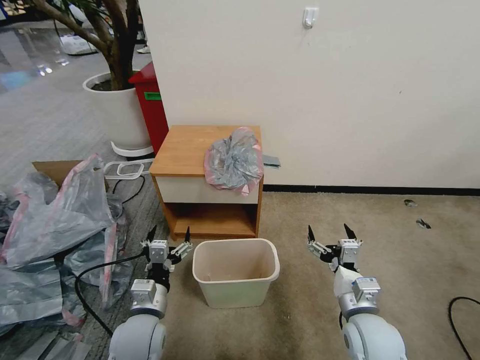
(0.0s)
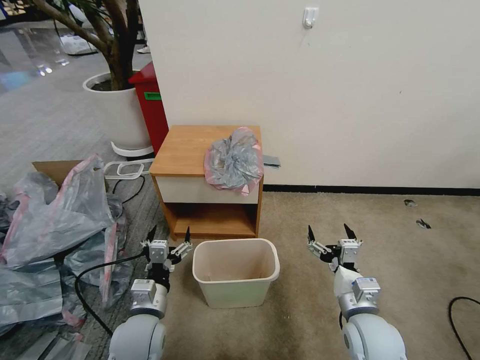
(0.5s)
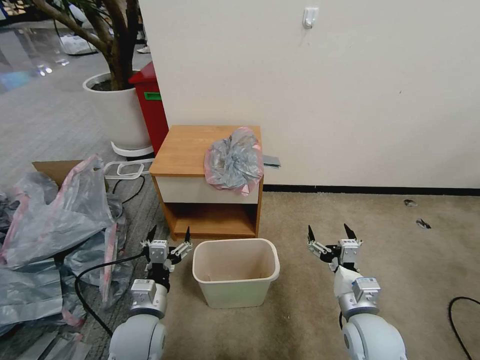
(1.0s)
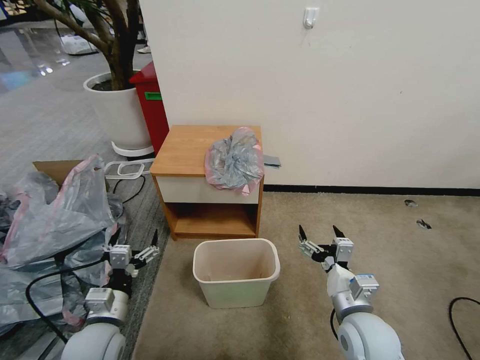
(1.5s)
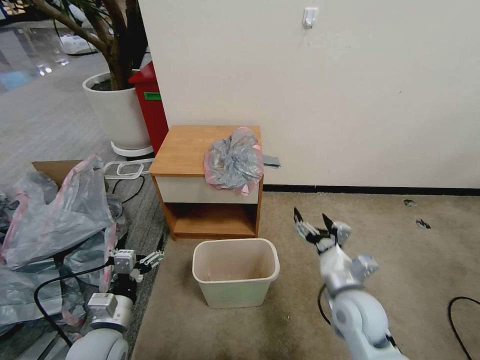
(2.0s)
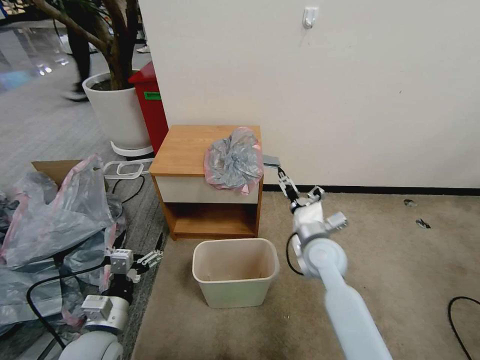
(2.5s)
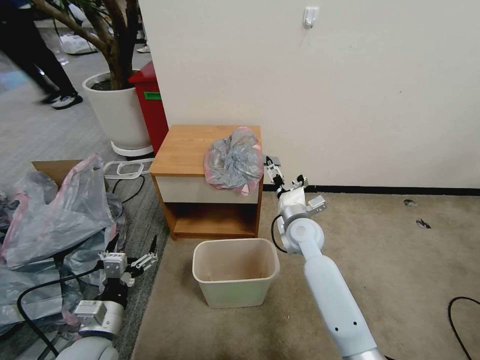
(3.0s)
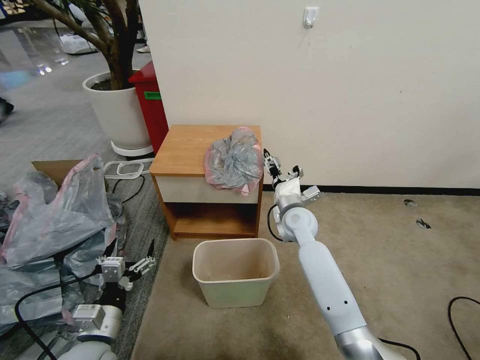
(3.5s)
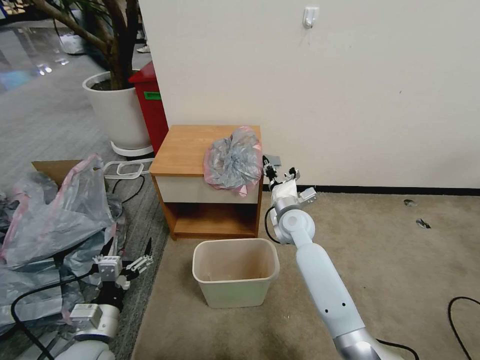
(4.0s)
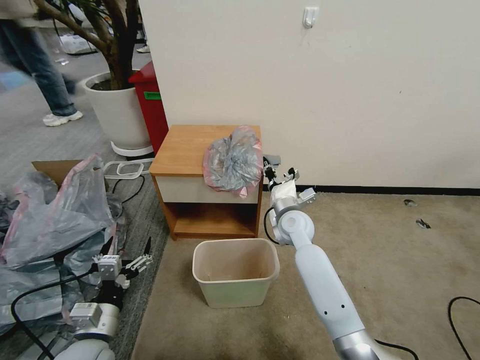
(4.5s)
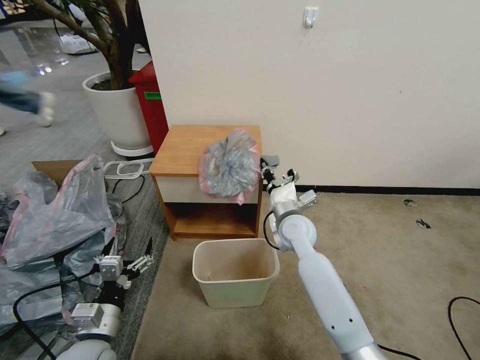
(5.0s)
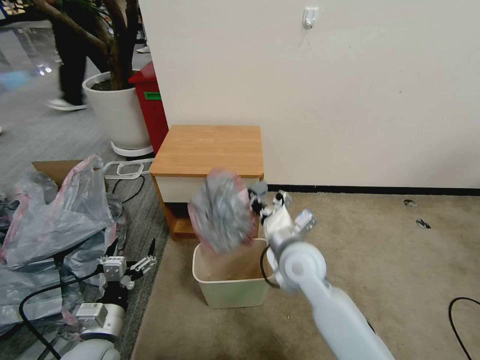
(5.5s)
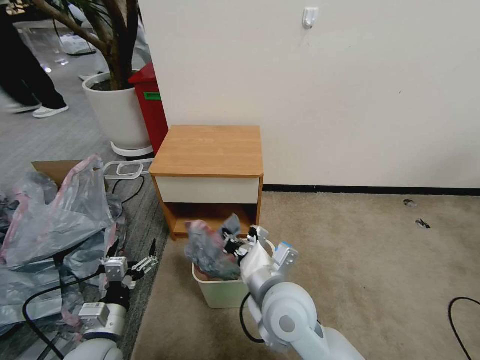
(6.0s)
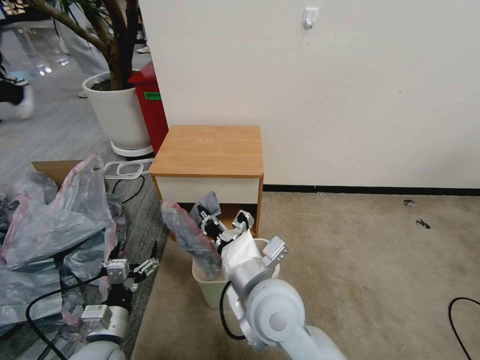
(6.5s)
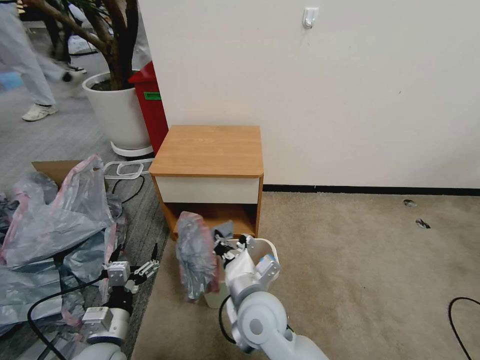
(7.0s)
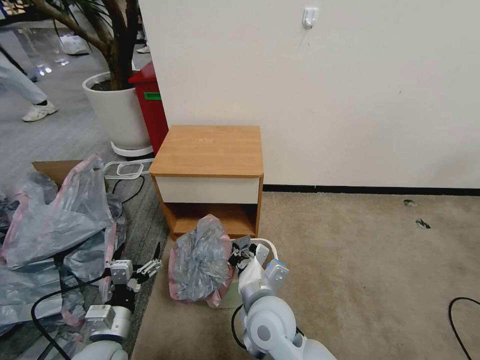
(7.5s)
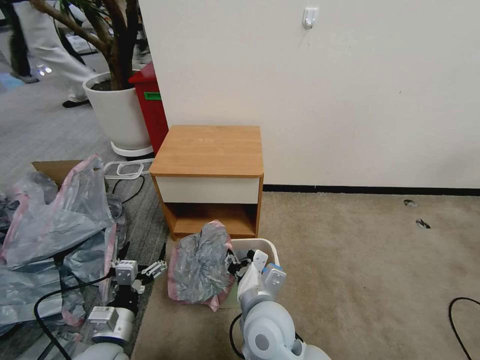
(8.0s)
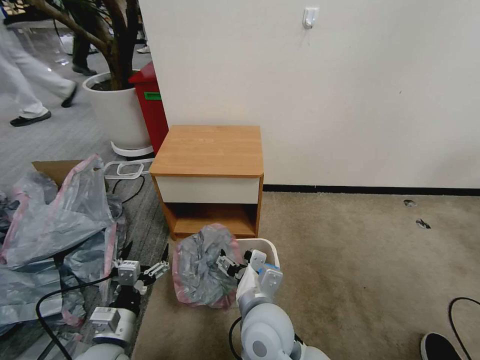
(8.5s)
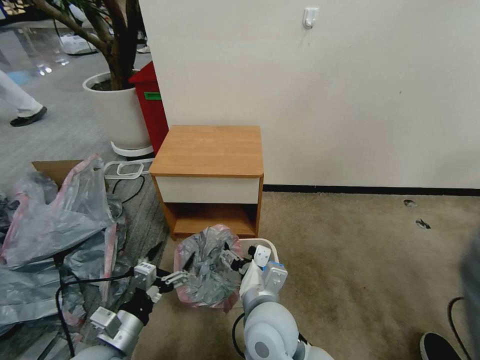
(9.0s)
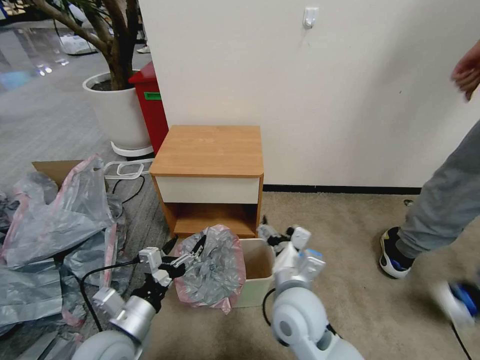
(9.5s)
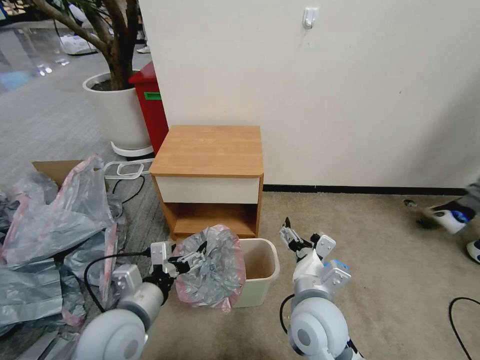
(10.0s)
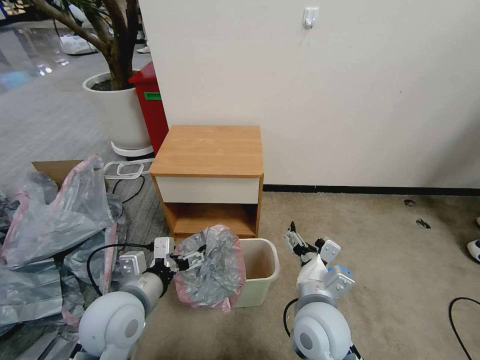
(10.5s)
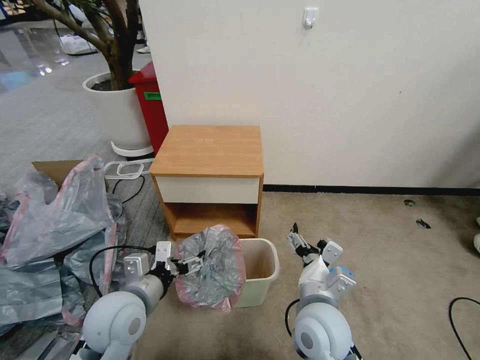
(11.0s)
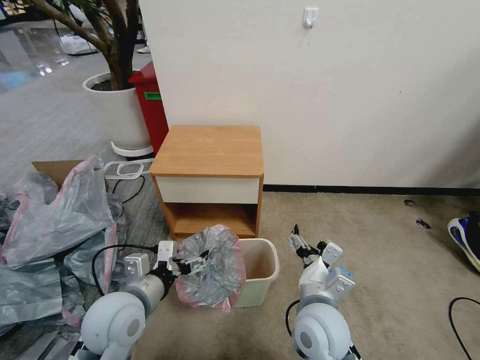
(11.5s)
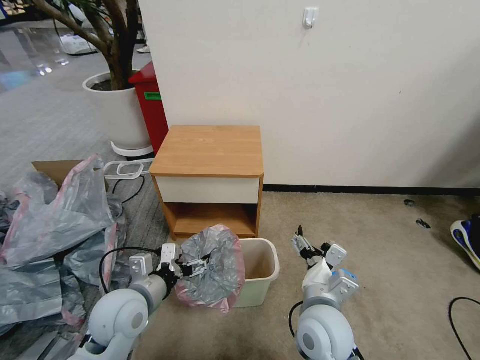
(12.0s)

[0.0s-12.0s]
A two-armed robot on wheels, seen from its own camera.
Task of the whole recording: Pick up the garbage bag from the table and place it over the trash can.
2.0s to 4.0s: The right gripper goes about 20 cm forward and to the left, and closes its fingers.
4.0s to 6.0s: The right gripper moves backward, some 20 cm.
6.0s to 8.0s: The right gripper changes place by approximately 5 cm, and opens its fingers.
8.0s to 10.0s: The left gripper moves upward and to the right, some 10 cm. Meanwhile the right gripper shifts roughly 10 cm to the right, and opens its fingers.
10.0s to 12.0s: The left gripper changes place by some 5 cm.

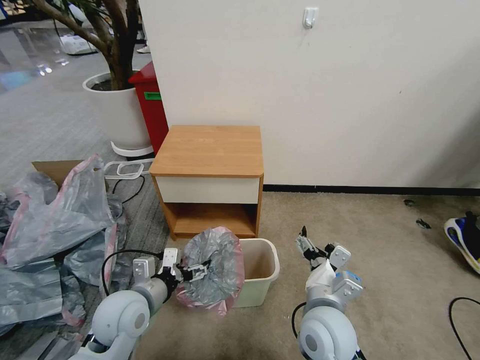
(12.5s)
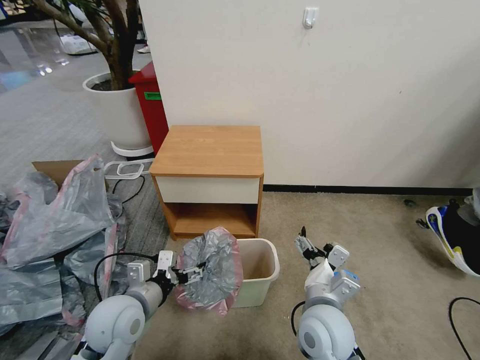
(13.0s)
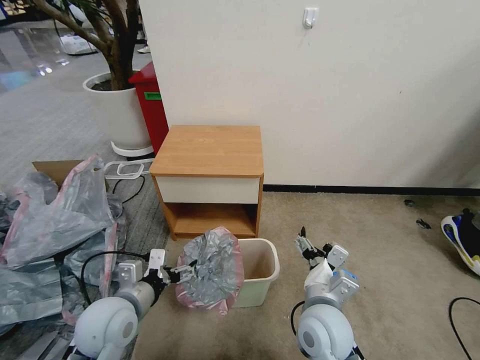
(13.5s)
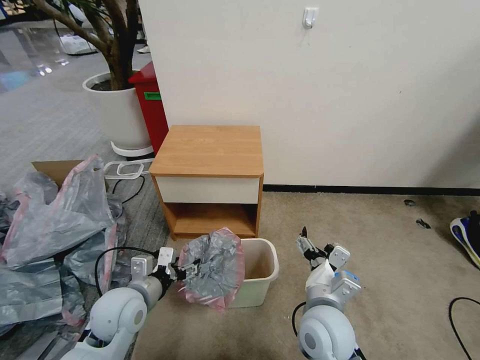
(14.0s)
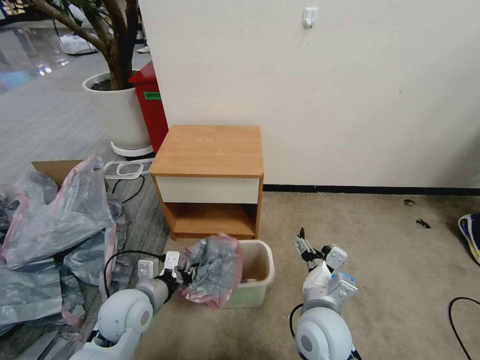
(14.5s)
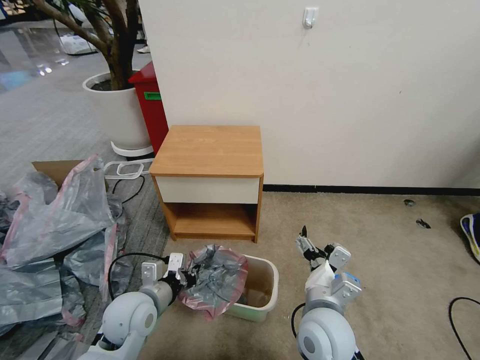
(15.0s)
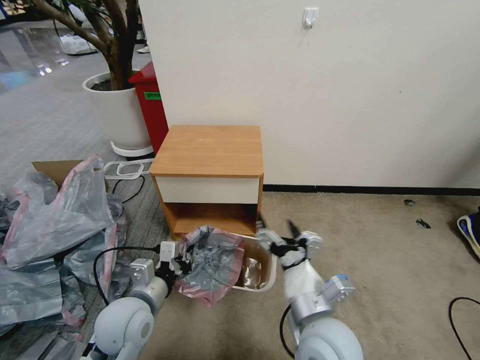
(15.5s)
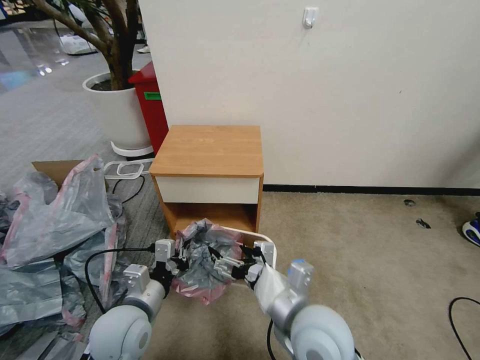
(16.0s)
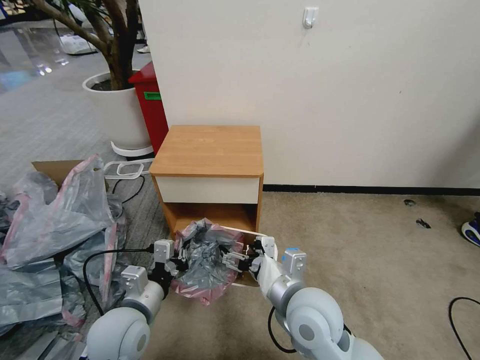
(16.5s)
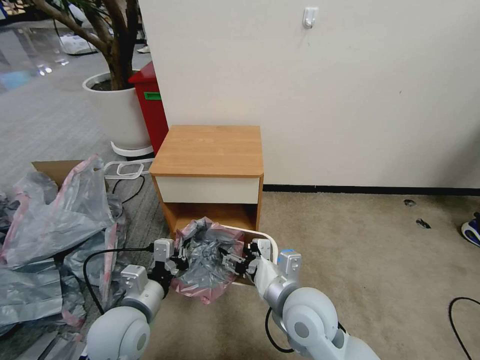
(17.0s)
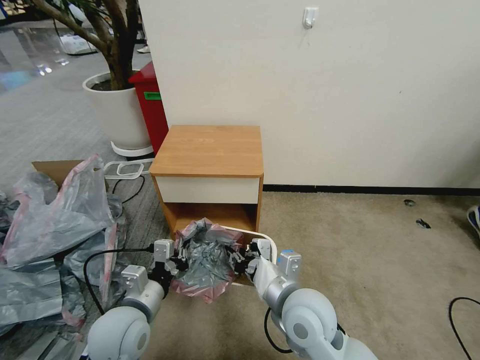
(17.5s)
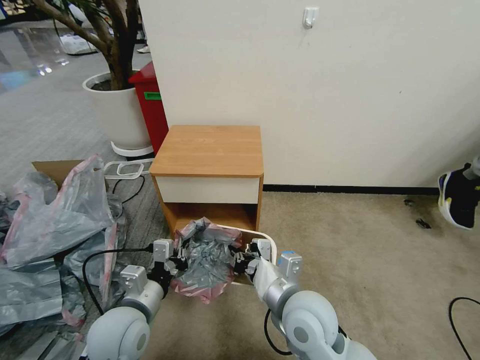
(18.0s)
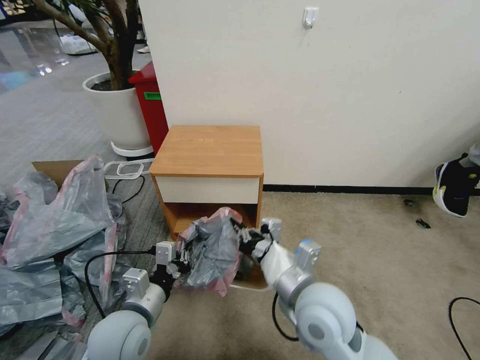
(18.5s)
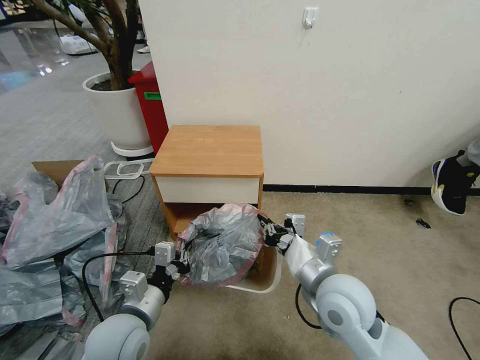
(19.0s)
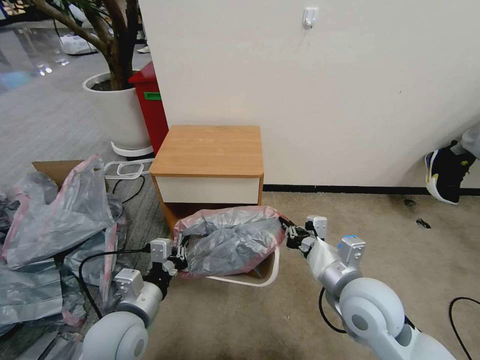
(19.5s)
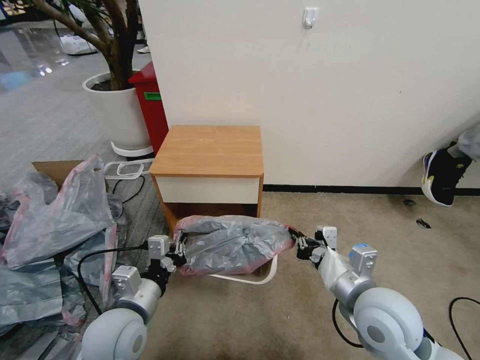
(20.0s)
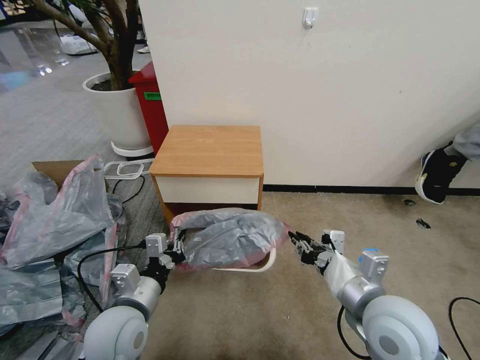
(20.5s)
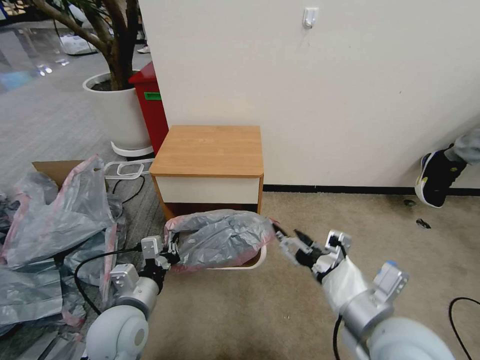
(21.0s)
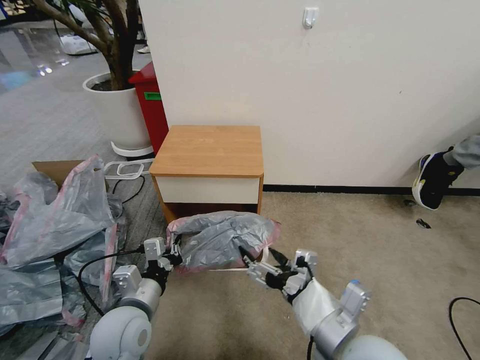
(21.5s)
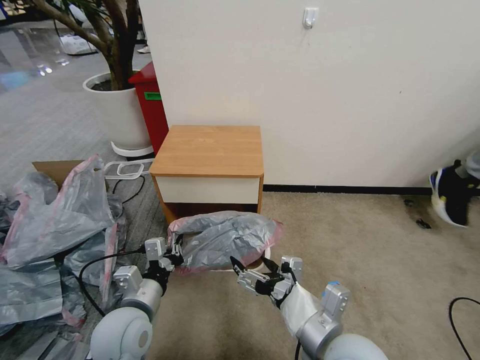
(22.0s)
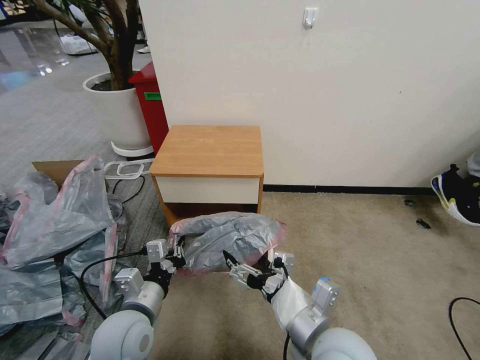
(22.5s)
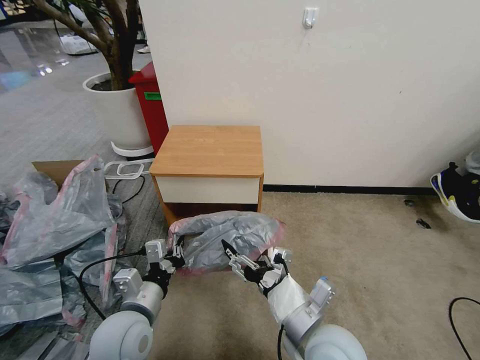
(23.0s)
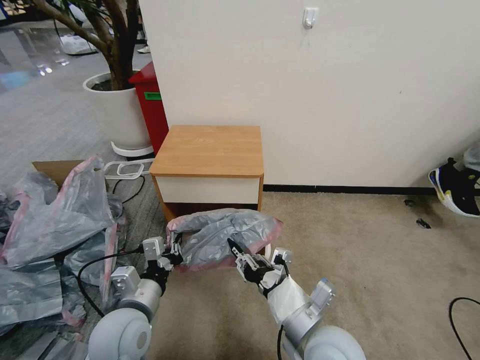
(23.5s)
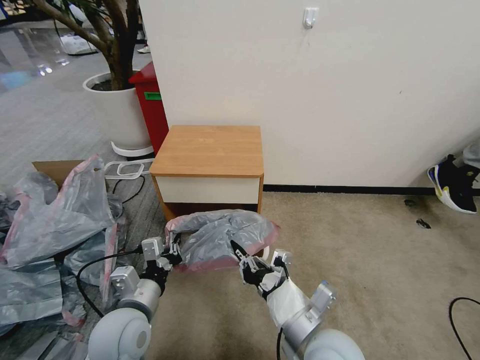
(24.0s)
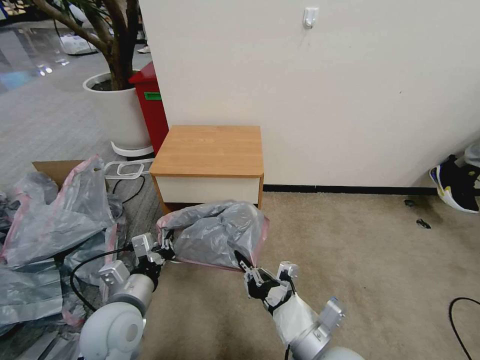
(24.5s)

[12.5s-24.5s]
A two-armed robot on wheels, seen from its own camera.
Task of the whole recording: Pick up the garbage bag from the table and place it over the trash can.
12.5s to 14.5s: The left gripper closes up.
14.5s to 16.5s: The left gripper shifts by approximately 5 cm. Meanwhile the right gripper heads upward, covering some 5 cm.
16.5s to 18.5s: The right gripper closes its fingers.
18.5s to 20.5s: The right gripper goes about 10 cm to the right.
20.5s to 22.5s: The right gripper travels to the left and backward by approximately 10 cm, and opens its fingers.
22.5s to 24.5s: The right gripper closes up.

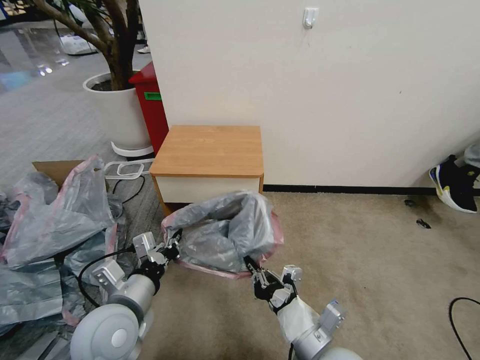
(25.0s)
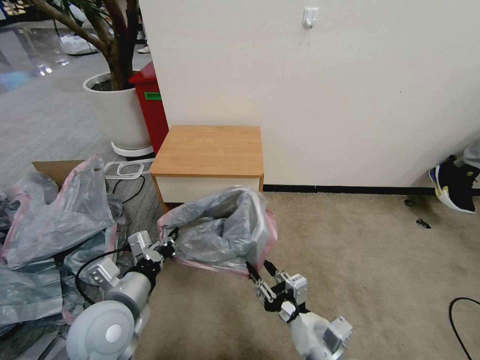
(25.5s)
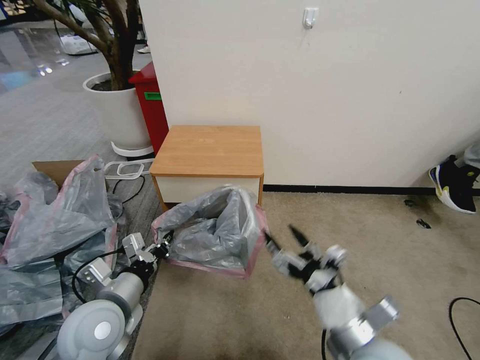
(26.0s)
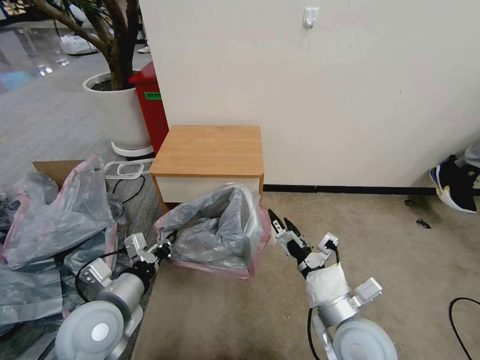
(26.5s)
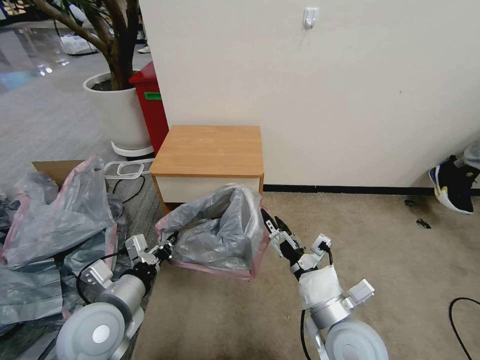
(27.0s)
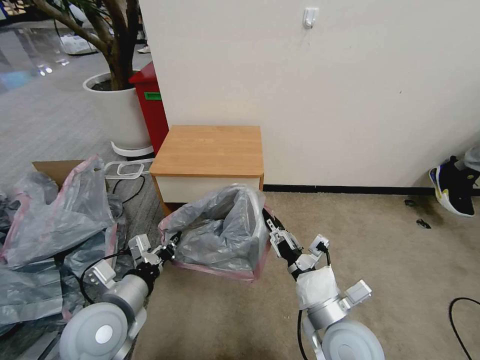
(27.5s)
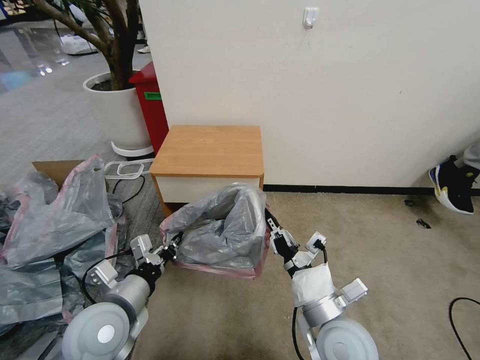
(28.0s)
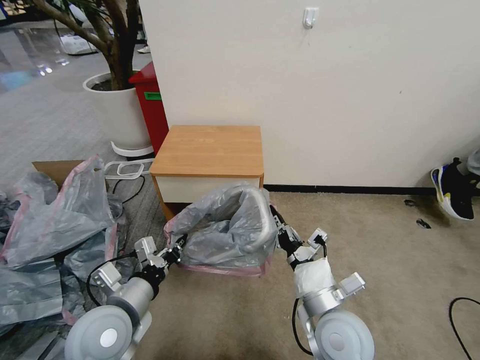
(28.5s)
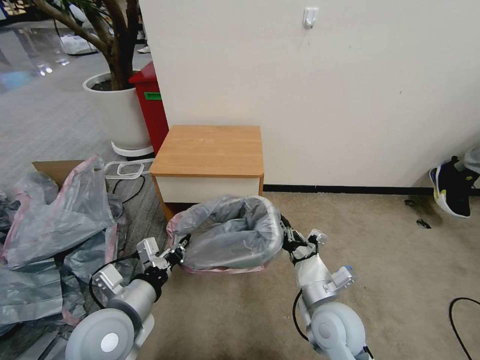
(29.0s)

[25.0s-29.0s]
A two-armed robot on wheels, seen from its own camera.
Task of the whole recording: Pick up the garbage bag from the table and place it over the trash can.
25.0s to 27.0s: The right gripper ends up about 5 cm from where it was, and opens.
27.0s to 29.0s: The right gripper shifts by about 5 cm, and closes its fingers.
